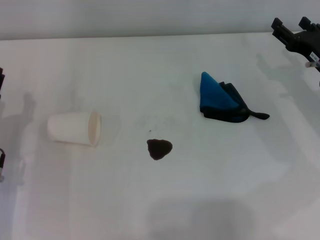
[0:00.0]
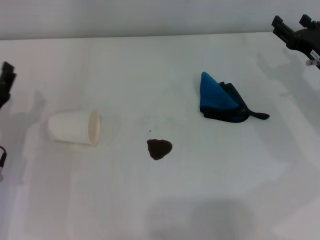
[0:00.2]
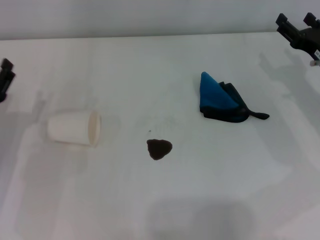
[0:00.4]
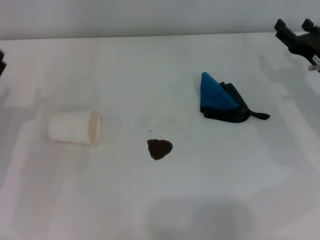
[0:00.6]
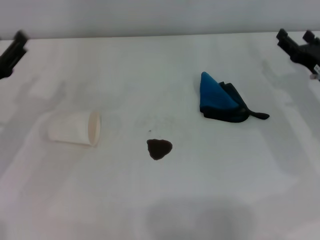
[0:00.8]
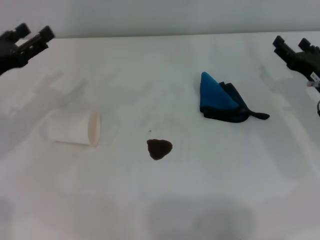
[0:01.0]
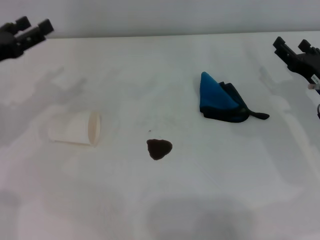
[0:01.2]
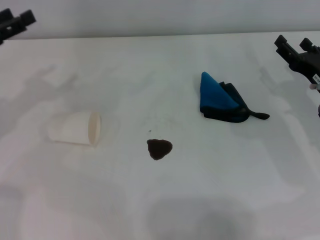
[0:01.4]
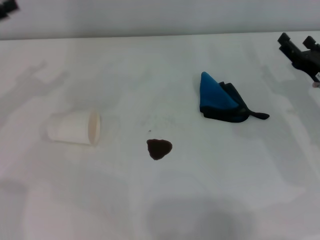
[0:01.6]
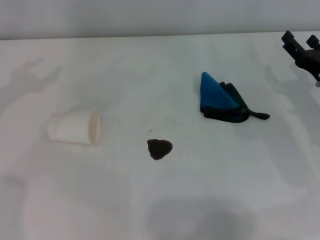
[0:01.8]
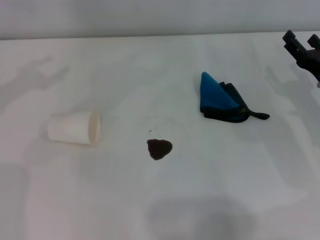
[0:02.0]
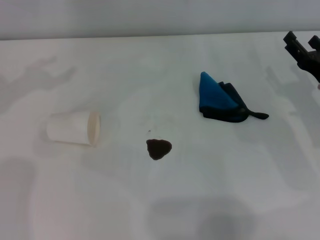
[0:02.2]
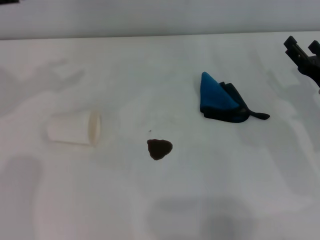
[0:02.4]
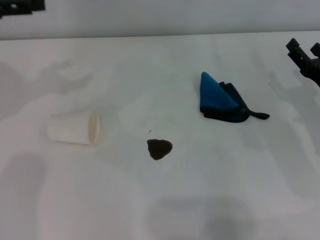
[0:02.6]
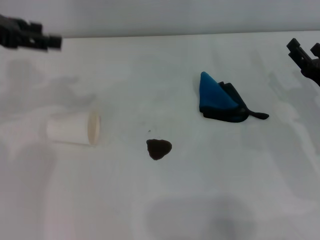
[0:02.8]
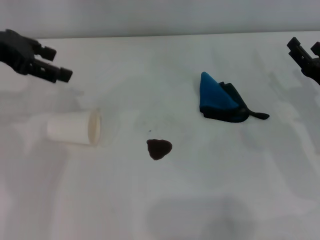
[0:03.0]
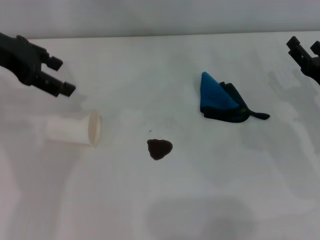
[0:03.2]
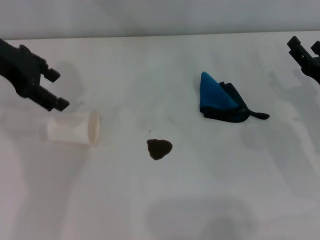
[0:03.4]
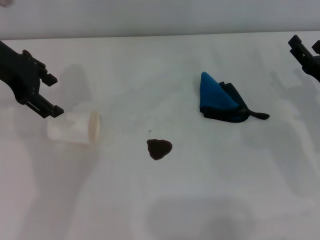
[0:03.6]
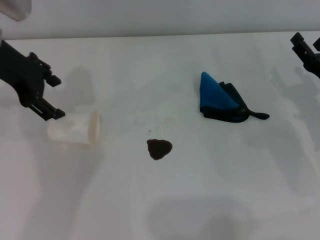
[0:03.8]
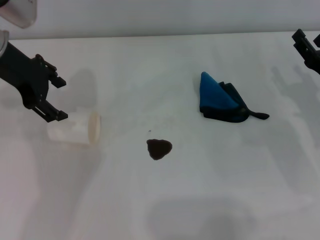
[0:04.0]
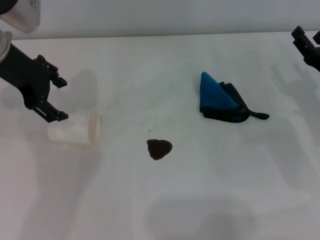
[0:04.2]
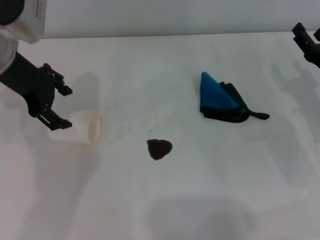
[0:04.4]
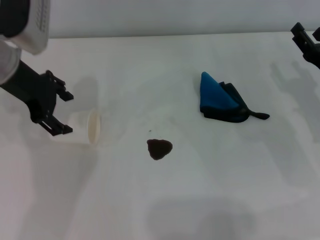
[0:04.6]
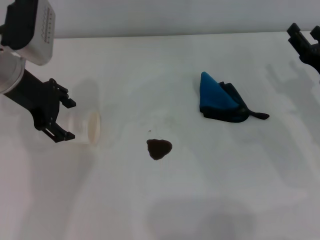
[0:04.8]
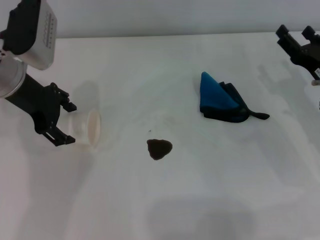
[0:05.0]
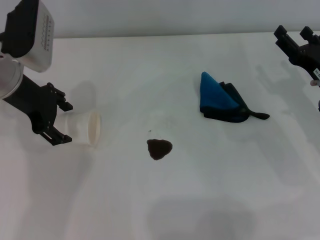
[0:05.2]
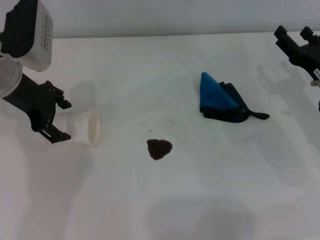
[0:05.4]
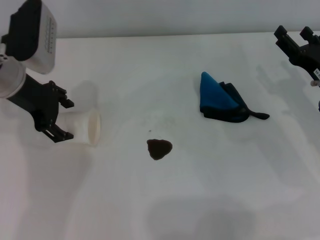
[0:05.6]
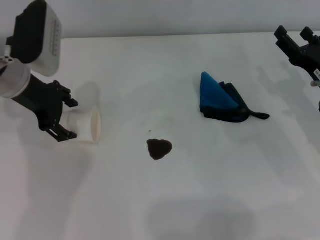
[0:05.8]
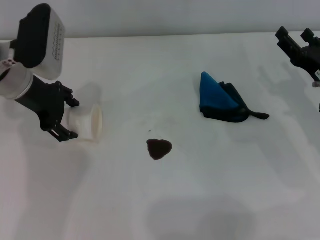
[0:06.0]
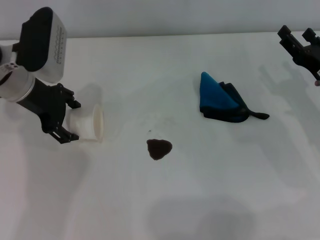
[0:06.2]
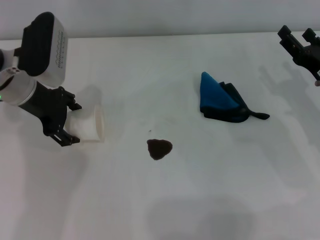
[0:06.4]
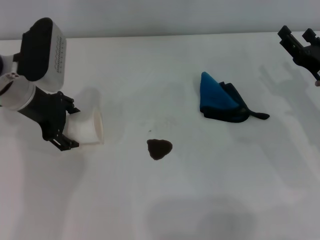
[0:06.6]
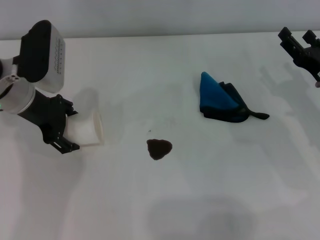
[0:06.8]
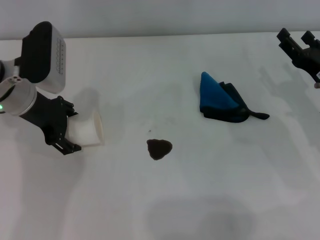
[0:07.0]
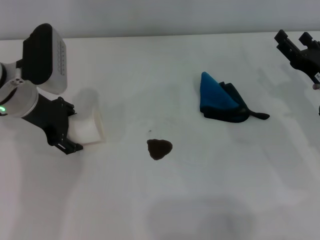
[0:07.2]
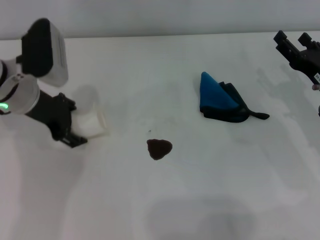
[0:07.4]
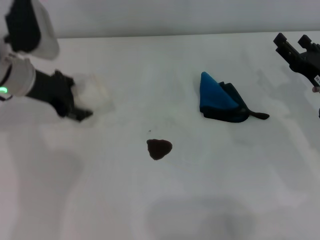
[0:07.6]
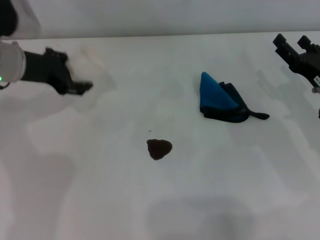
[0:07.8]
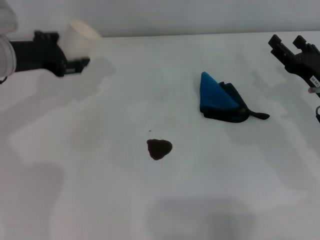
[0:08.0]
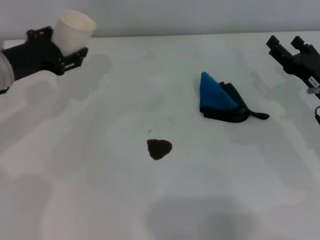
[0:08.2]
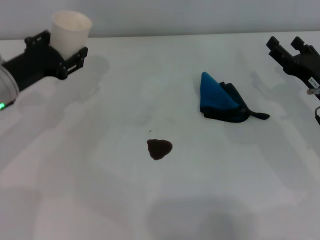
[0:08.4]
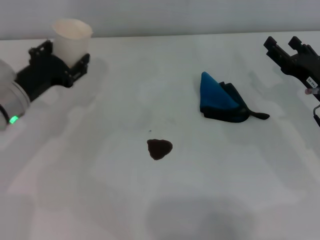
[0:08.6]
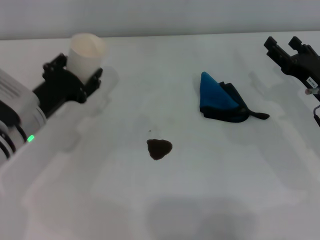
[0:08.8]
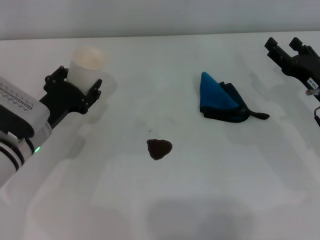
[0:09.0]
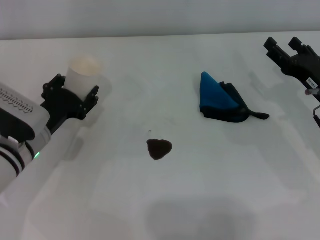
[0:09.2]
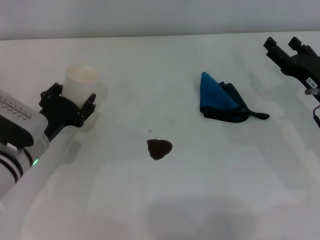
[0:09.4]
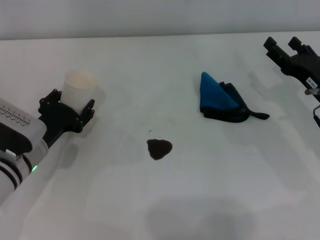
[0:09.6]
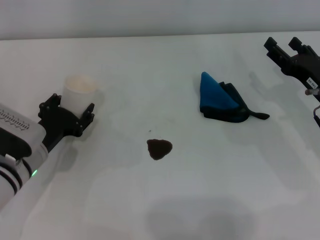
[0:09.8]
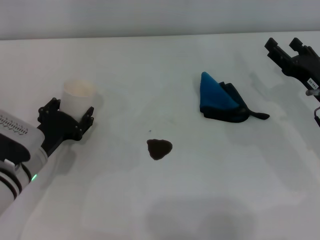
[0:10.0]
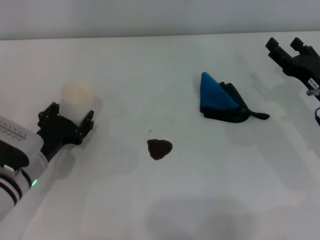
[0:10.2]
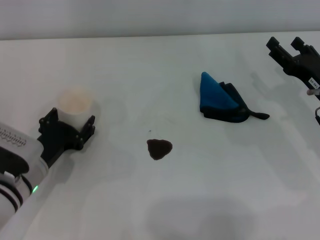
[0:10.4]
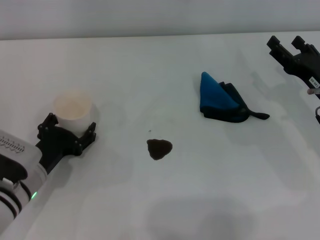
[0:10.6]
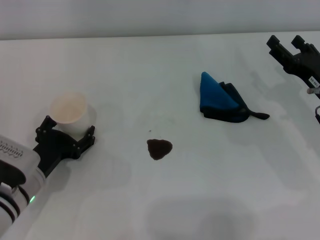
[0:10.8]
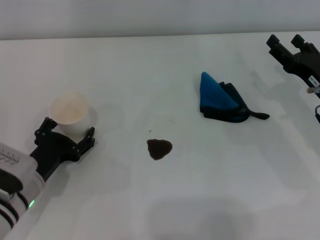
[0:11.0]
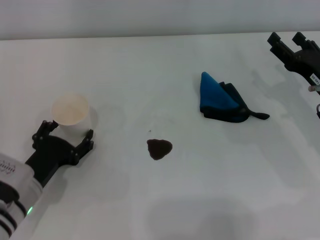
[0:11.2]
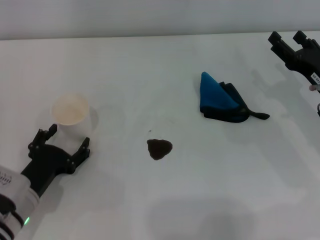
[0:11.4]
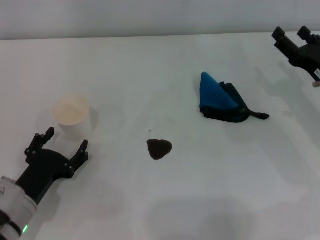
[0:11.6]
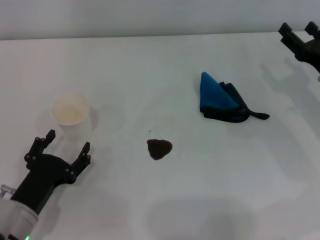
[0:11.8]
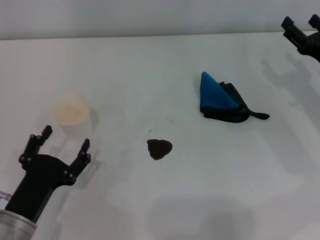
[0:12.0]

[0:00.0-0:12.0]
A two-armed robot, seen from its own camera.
Step, 0:00.0 to 0:06.6: Grasp the paper cup with the left gripper.
Step, 0:06.8 to 0:11.2: Stand the paper cup upright with the left gripper.
0:00.0 to 0:01.6: The left gripper shifts roughly 20 cm upward, forward and to the left.
0:01.6 to 0:03.0: The left gripper heads to the right and upward, covering roughly 10 cm, and closes and opens again.
0:03.0 to 0:04.4: The left gripper shifts about 5 cm to the right.
0:04.4 to 0:06.0: The left gripper shifts roughly 5 cm downward.
0:06.0 to 0:07.6: The left gripper closes its fingers.
0:07.6 to 0:09.0: The left gripper is displaced downward and backward by roughly 15 cm, and closes up.
0:09.0 to 0:10.4: The left gripper moves some 5 cm.
0:10.4 to 0:12.0: The left gripper travels backward by some 10 cm, and opens its fingers.

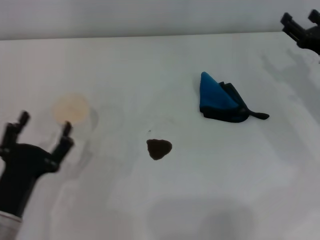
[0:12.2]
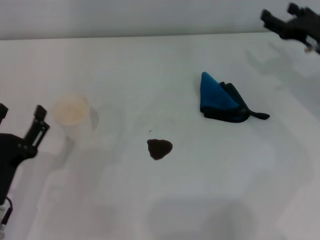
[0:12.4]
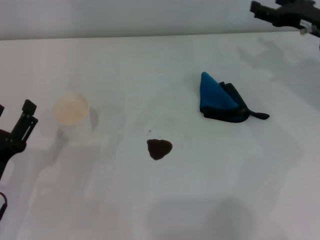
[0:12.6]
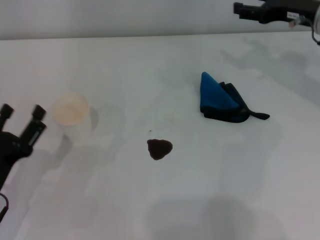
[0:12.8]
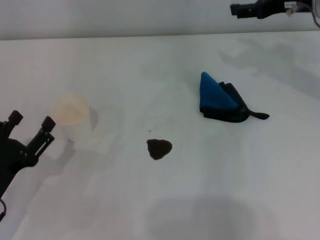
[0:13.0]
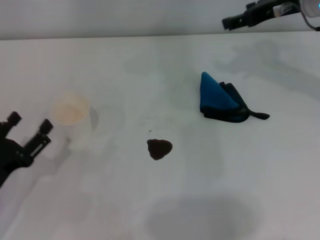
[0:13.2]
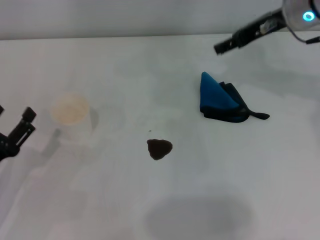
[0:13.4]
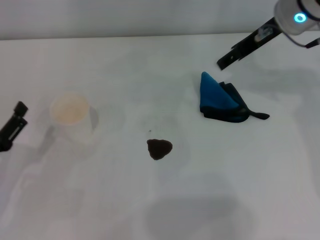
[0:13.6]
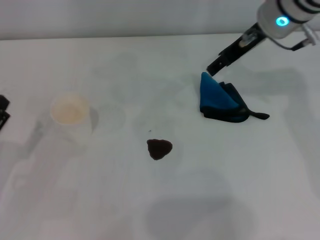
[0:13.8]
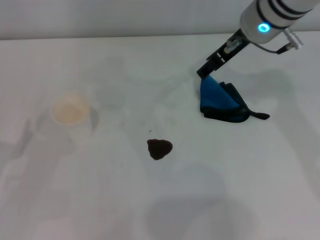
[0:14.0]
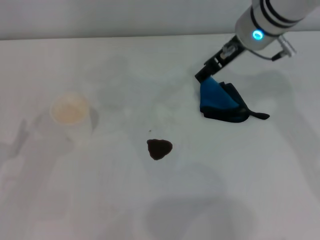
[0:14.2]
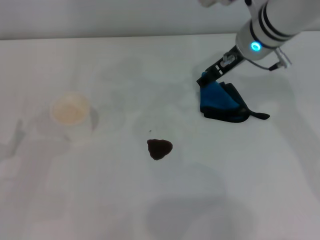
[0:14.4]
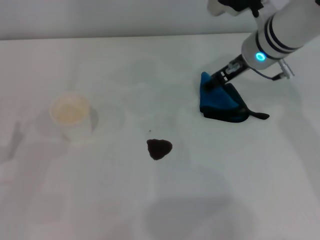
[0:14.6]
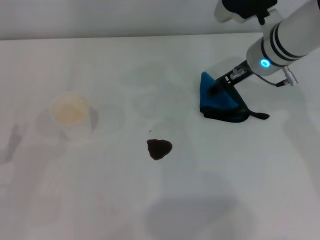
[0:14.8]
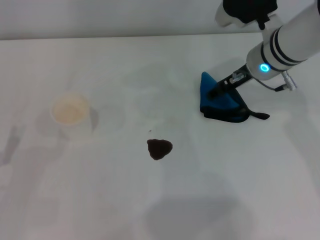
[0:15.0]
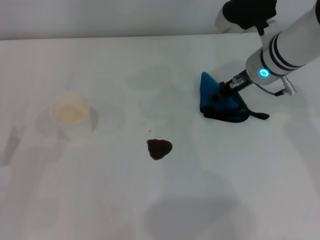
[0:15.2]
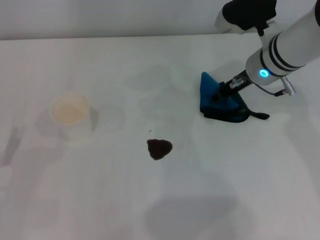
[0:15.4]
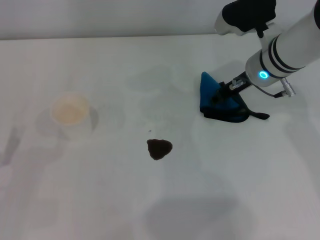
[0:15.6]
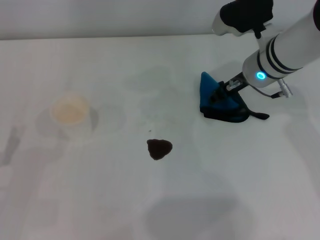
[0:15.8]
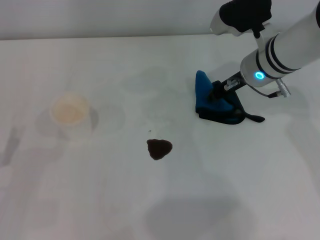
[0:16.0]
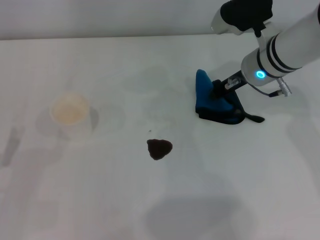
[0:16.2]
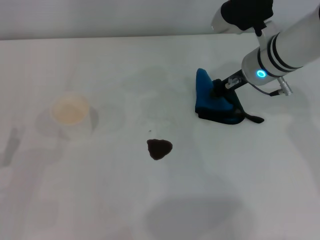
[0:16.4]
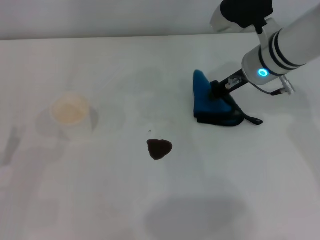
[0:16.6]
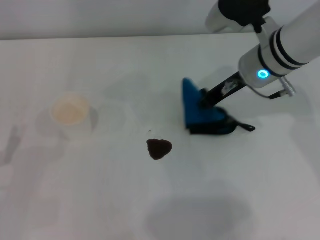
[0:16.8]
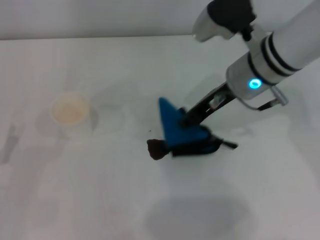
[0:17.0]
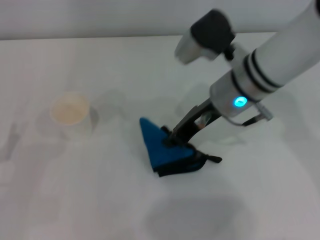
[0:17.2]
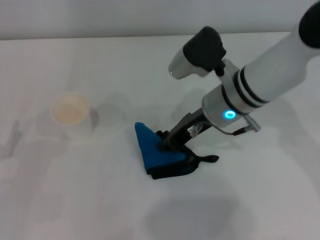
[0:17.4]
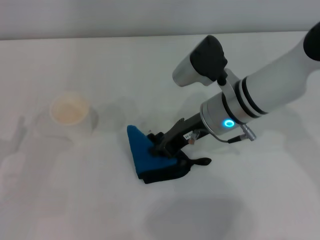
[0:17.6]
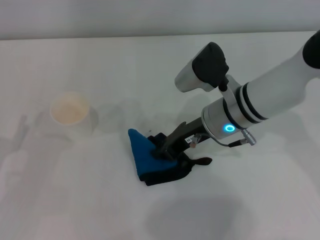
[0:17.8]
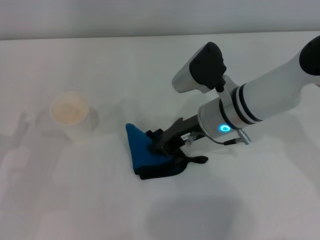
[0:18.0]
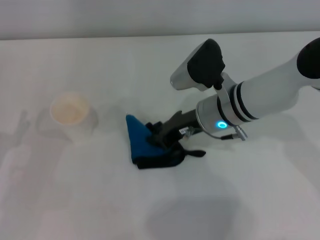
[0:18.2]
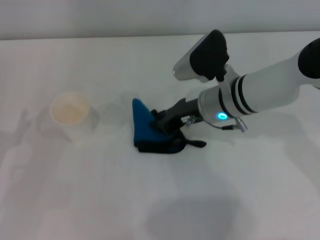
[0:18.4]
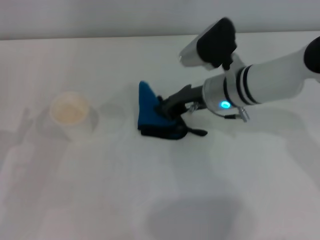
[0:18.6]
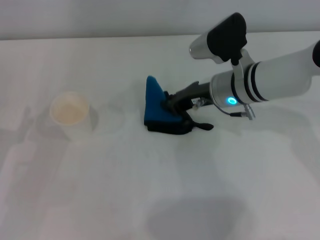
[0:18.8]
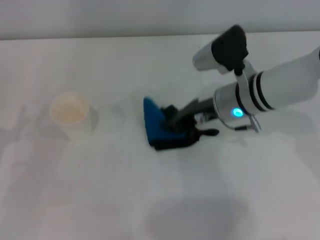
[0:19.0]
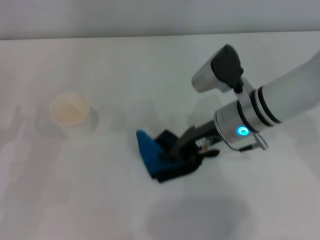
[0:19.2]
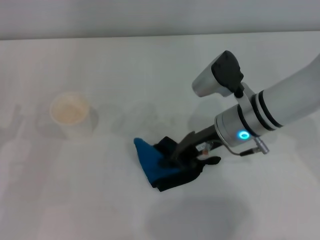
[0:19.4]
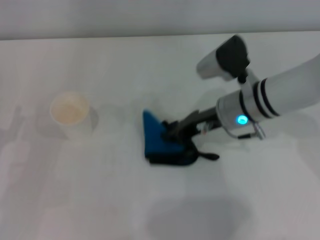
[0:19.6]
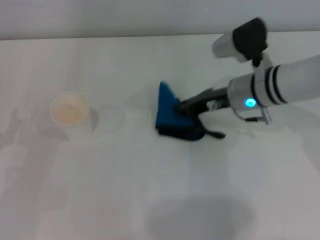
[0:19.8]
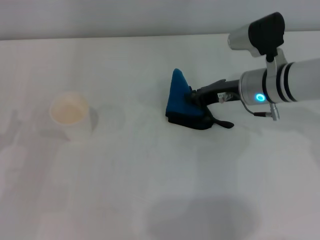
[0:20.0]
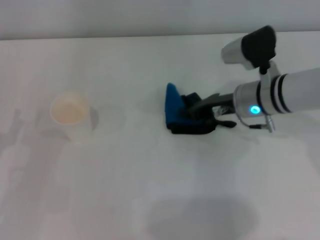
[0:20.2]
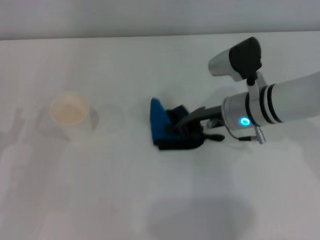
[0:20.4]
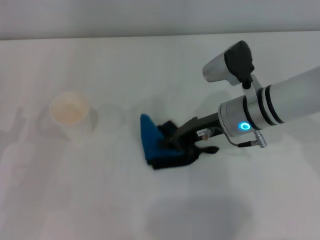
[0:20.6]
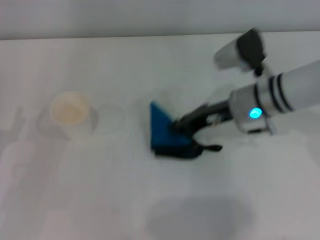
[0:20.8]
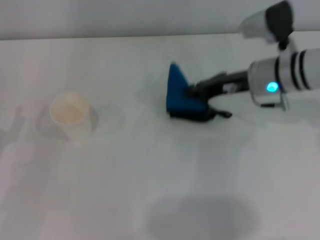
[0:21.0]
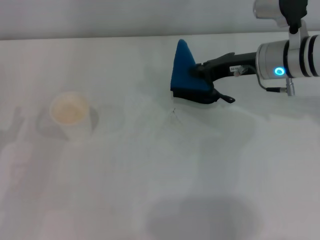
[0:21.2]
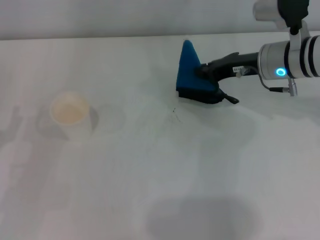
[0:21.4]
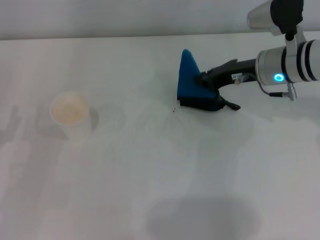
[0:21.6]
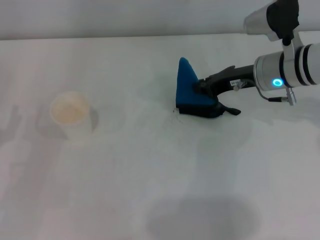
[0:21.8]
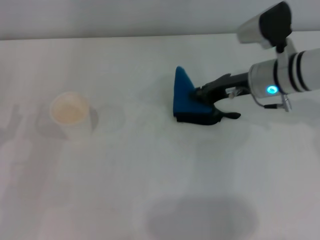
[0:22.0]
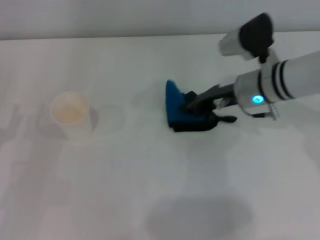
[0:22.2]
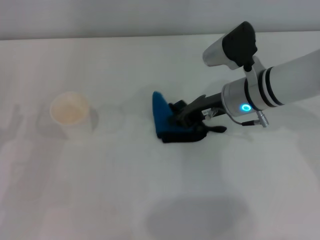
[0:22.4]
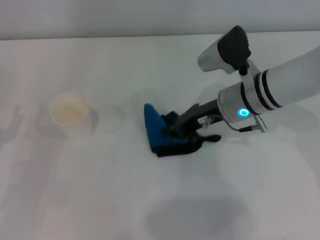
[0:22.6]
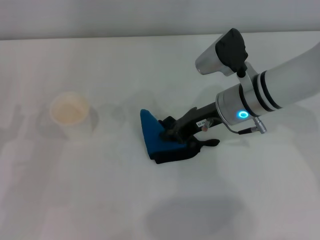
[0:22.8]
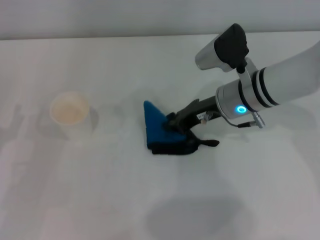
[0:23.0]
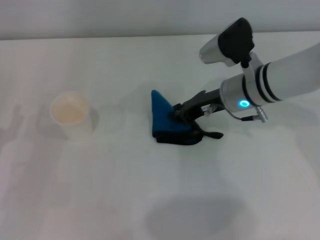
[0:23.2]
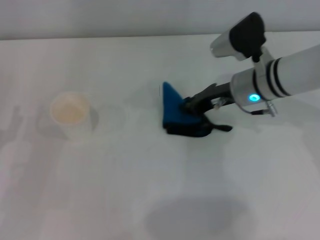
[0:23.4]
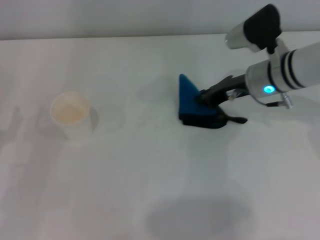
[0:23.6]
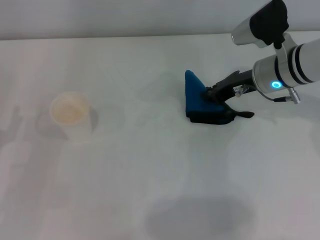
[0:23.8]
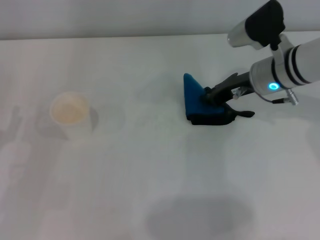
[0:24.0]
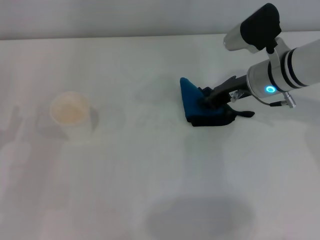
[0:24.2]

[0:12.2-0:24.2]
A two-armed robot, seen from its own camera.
Step, 0:12.2 to 0:15.6: Grasp the rag with the right gripper.
Step, 0:15.8 to 0:23.2: Wipe the stains off the table with the right gripper.
0:12.2 to 0:13.8: The left gripper is displaced to the left by about 10 cm, while the right gripper moves to the left, upward and forward, some 20 cm.
0:13.8 to 0:15.2: The right gripper moves downward, roughly 10 cm.
0:15.2 to 0:16.6: The right gripper closes its fingers.
0:16.6 to 0:18.2: The right gripper moves to the left and downward, about 10 cm.
0:18.2 to 0:19.8: The right gripper moves to the right, approximately 5 cm.
0:19.8 to 0:21.2: The right gripper changes place by approximately 5 cm.
0:21.2 to 0:22.6: The right gripper moves to the left, some 5 cm.
0:22.6 to 0:24.2: The right gripper changes place by approximately 5 cm.
